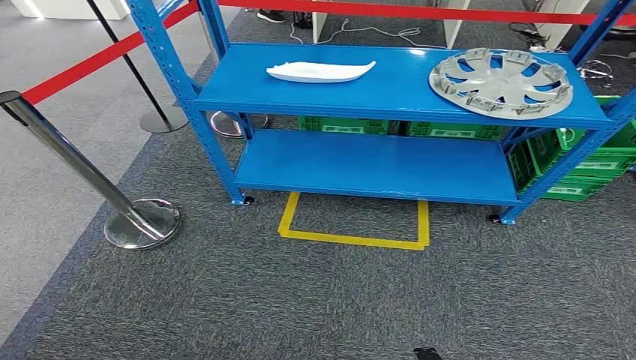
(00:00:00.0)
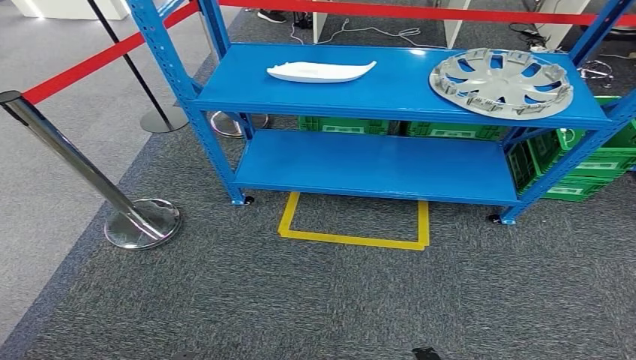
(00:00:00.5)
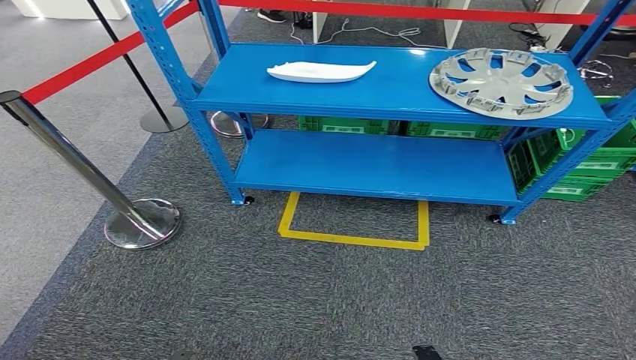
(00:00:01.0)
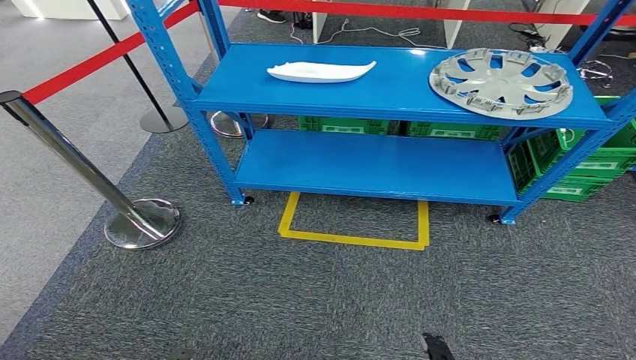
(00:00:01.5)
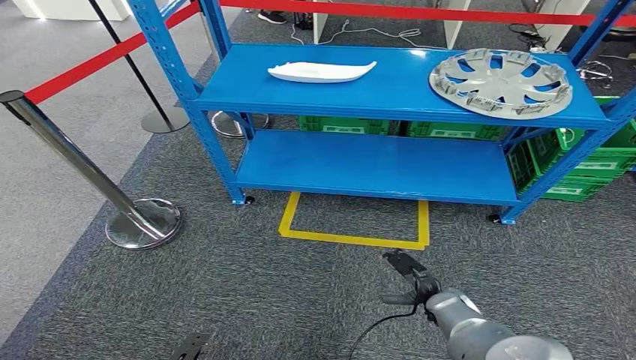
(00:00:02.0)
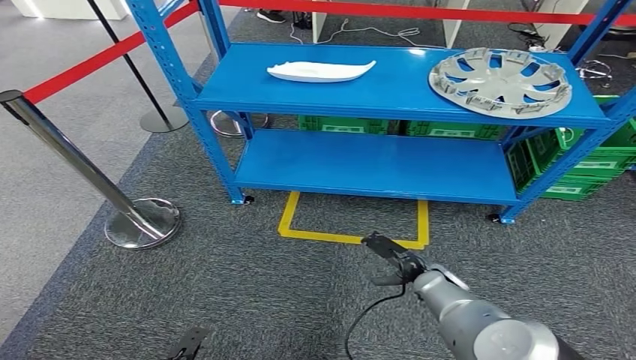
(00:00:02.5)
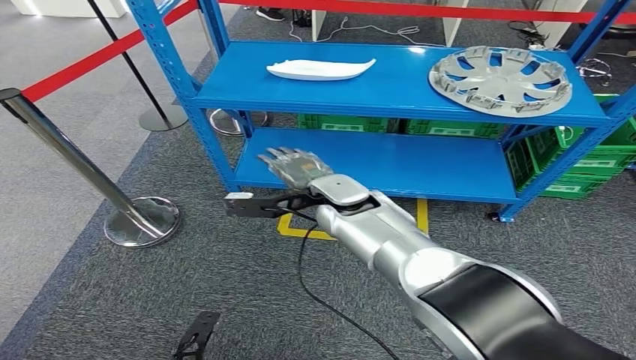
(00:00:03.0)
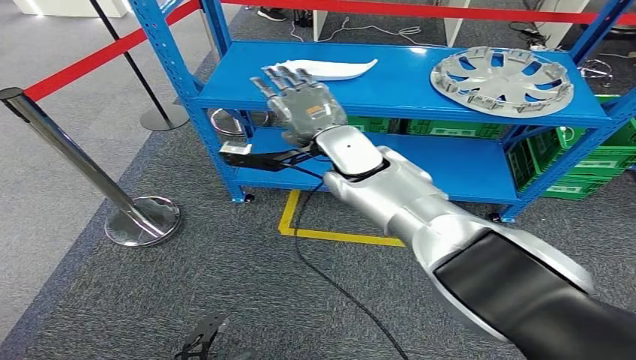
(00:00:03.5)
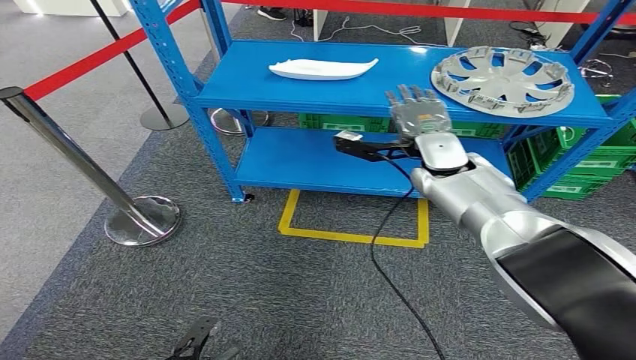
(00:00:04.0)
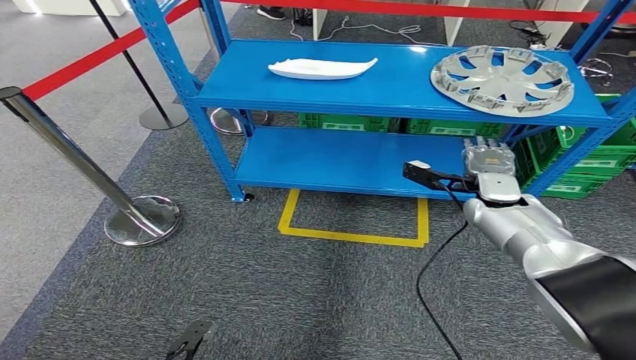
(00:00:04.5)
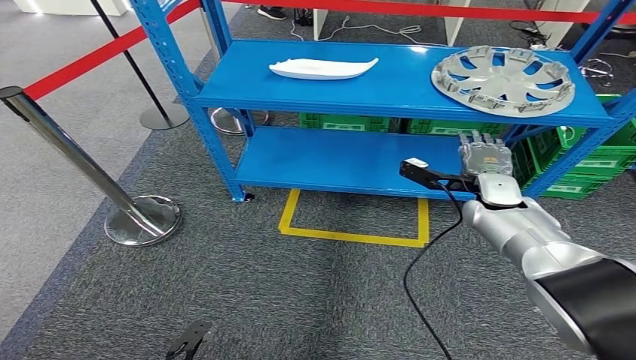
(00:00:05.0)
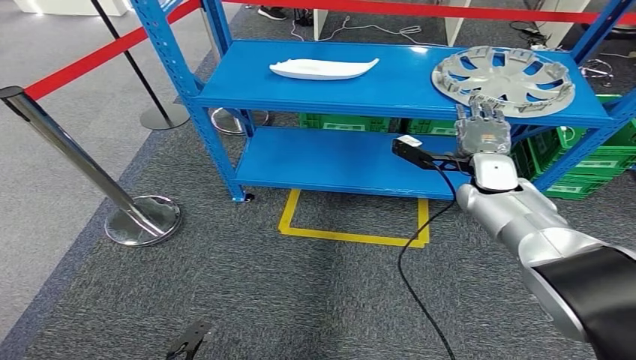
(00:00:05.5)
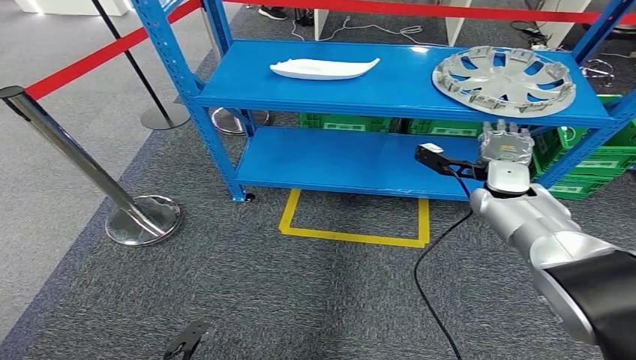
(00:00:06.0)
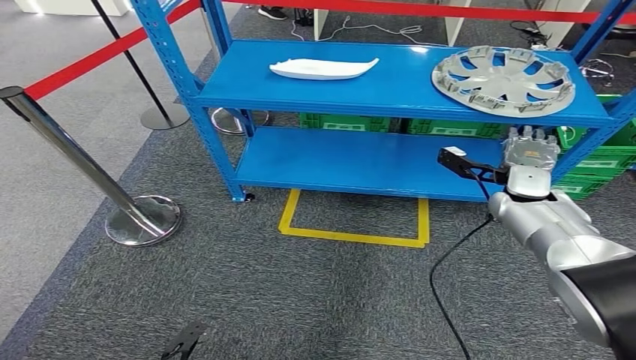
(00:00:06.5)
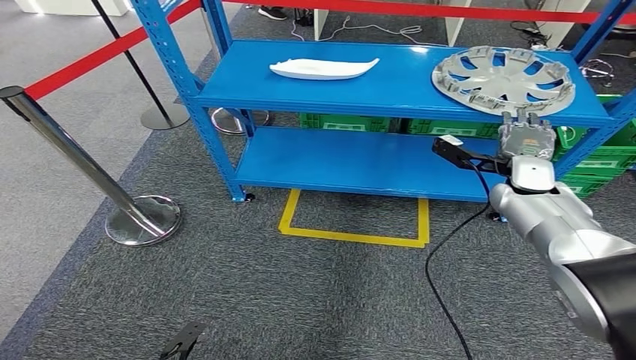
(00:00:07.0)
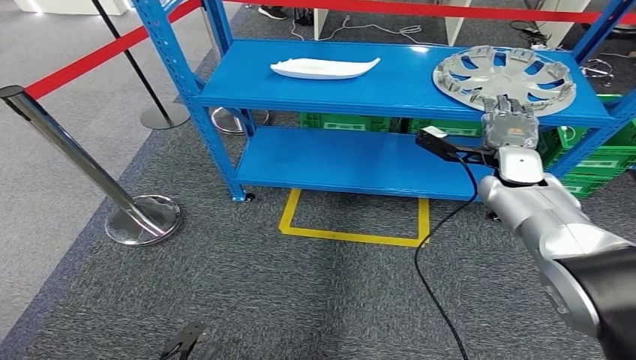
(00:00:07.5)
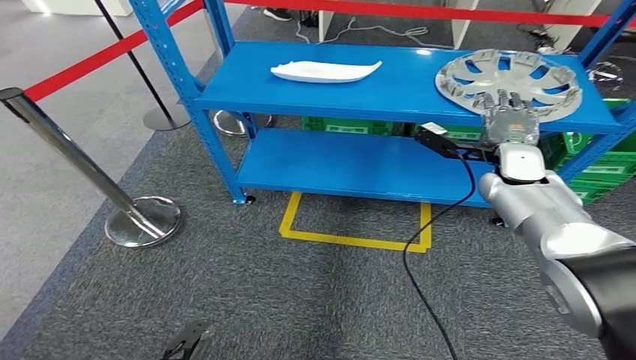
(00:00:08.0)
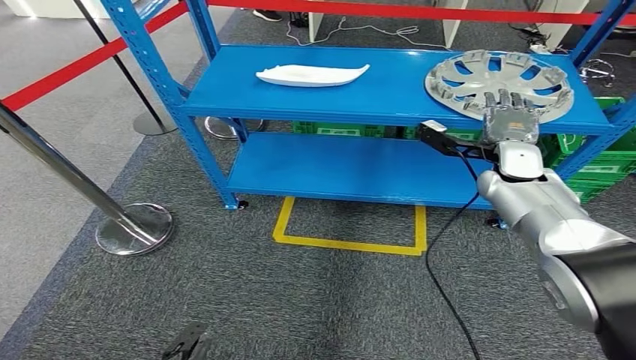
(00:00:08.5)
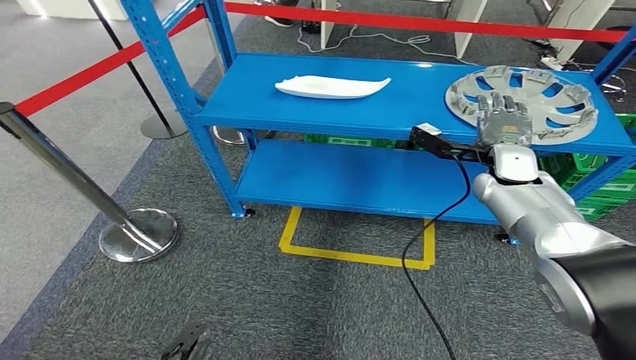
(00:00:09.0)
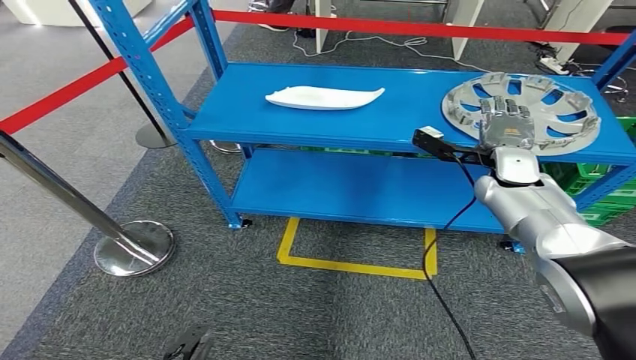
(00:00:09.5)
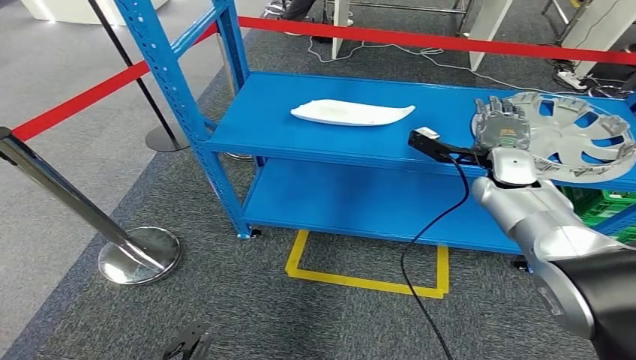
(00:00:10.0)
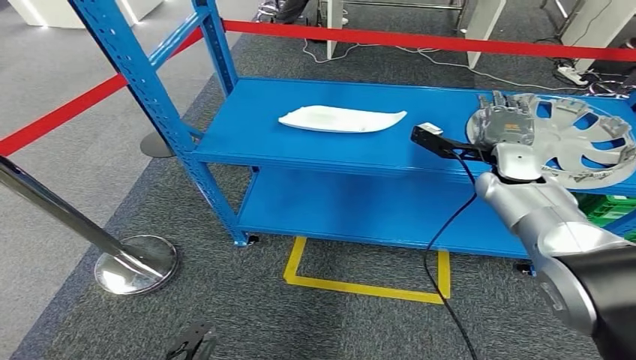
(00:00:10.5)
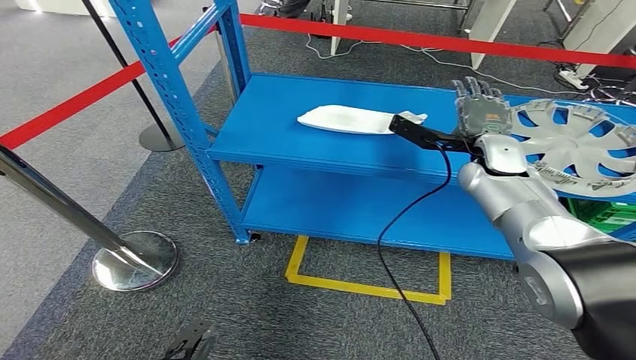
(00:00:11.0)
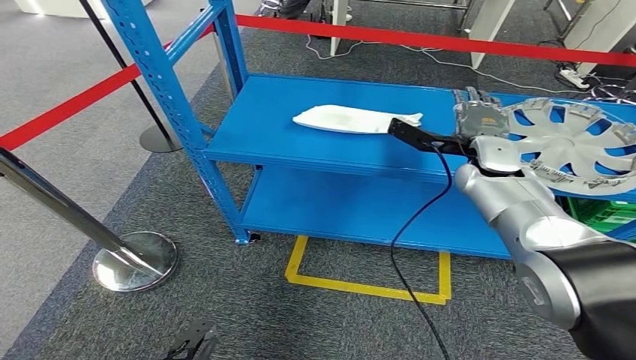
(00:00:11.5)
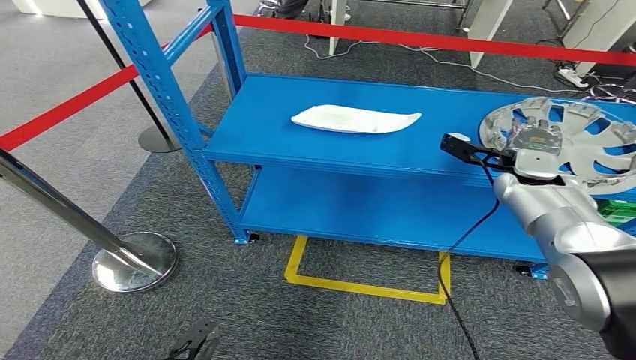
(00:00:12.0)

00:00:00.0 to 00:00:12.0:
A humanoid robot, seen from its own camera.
00:00:04.0 to 00:00:06.0: The right hand shifts about 15 cm to the right and downward.
00:00:06.0 to 00:00:08.0: The hands make only small movements.

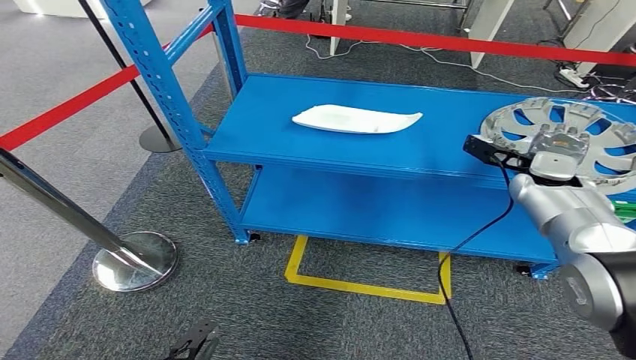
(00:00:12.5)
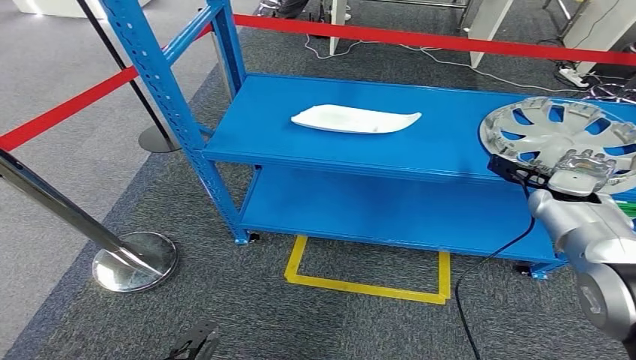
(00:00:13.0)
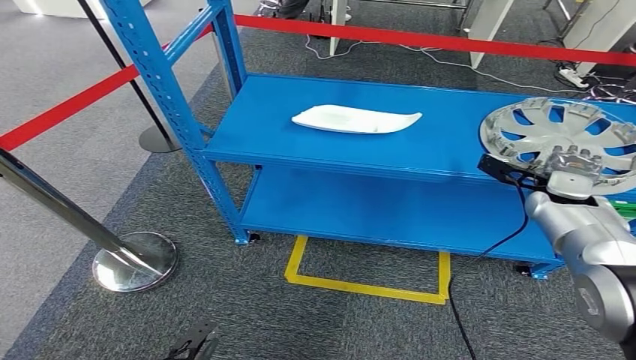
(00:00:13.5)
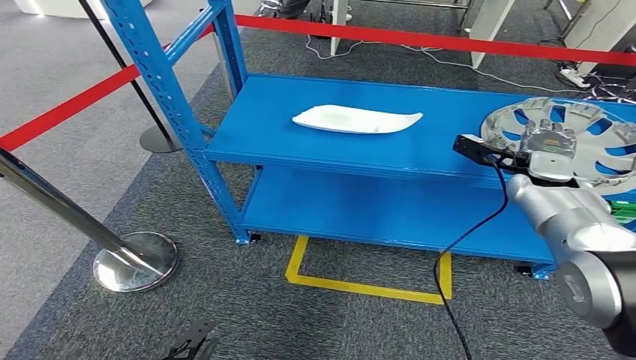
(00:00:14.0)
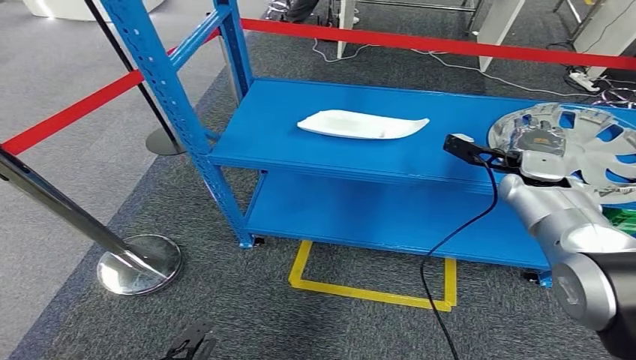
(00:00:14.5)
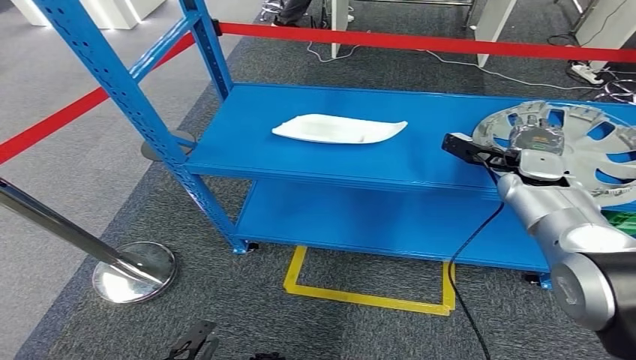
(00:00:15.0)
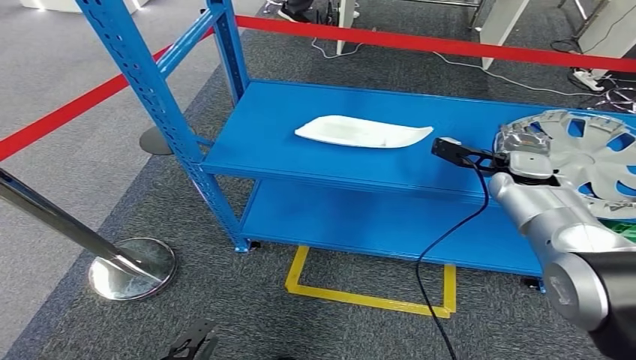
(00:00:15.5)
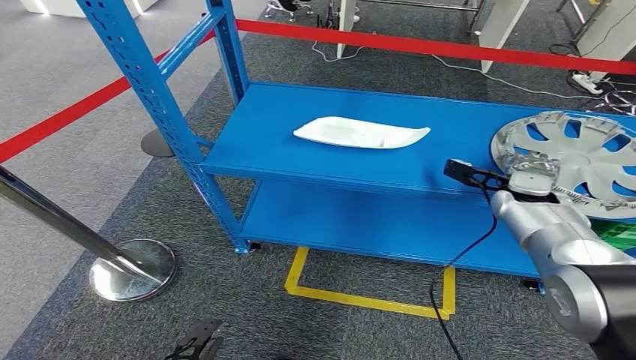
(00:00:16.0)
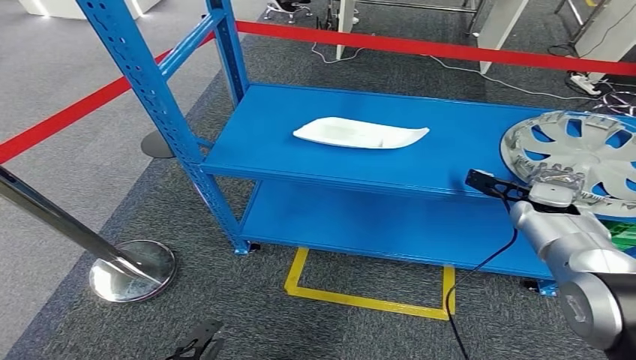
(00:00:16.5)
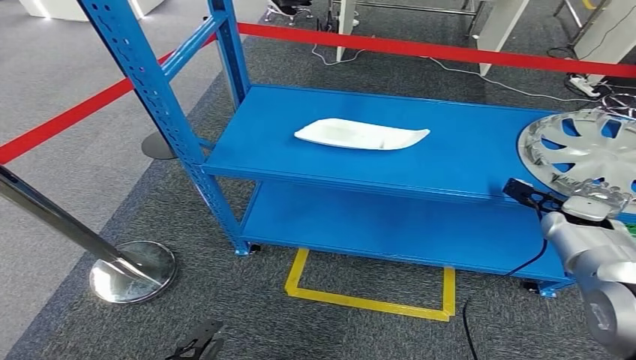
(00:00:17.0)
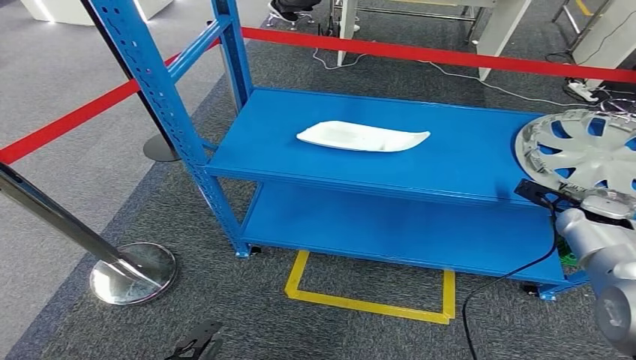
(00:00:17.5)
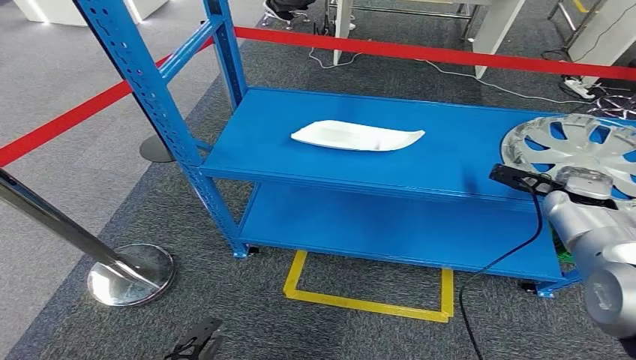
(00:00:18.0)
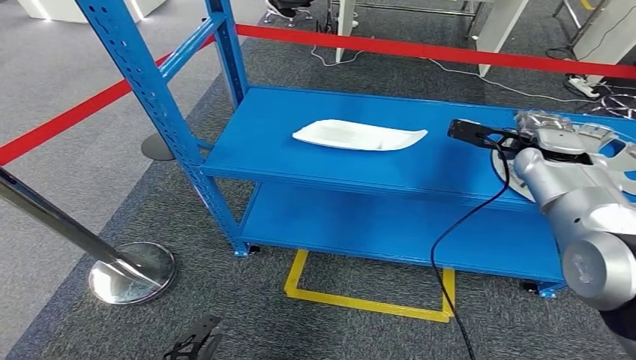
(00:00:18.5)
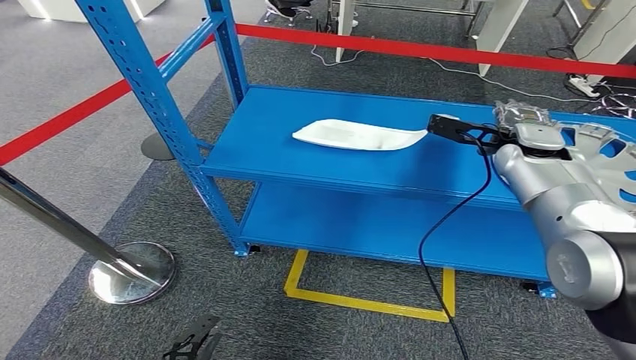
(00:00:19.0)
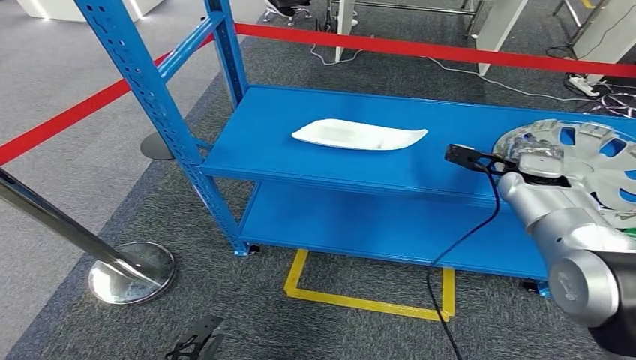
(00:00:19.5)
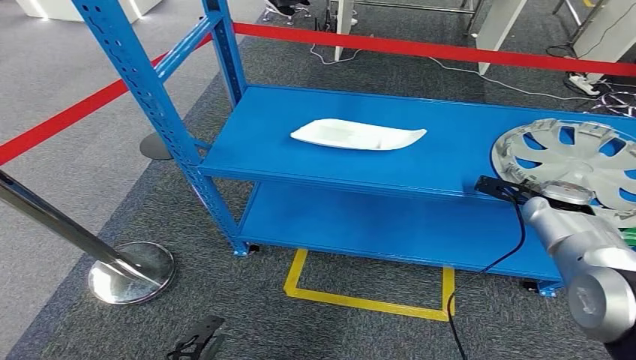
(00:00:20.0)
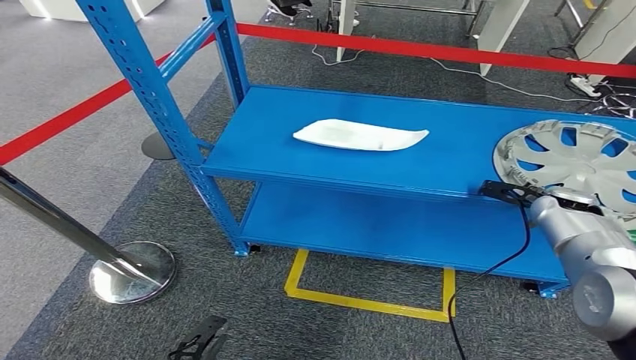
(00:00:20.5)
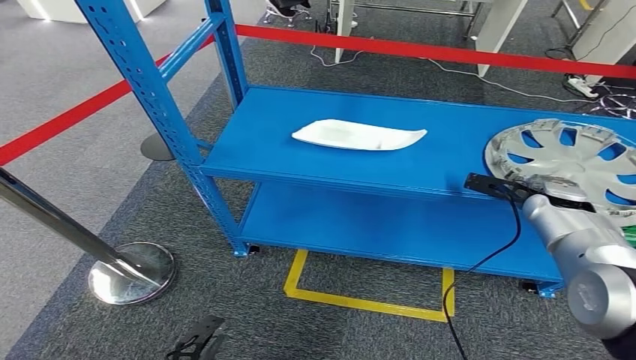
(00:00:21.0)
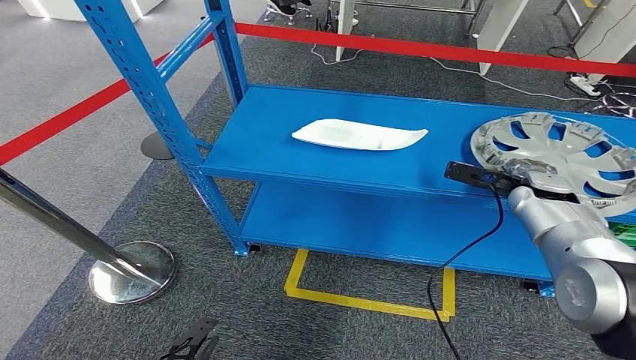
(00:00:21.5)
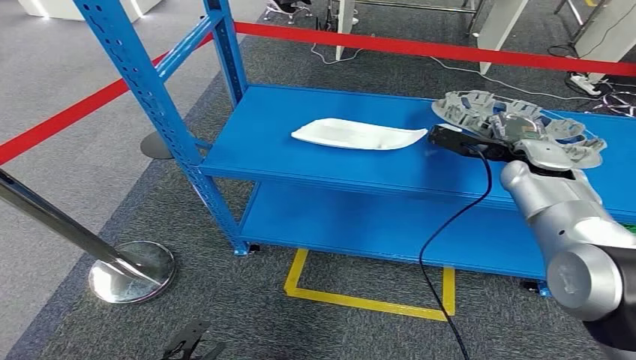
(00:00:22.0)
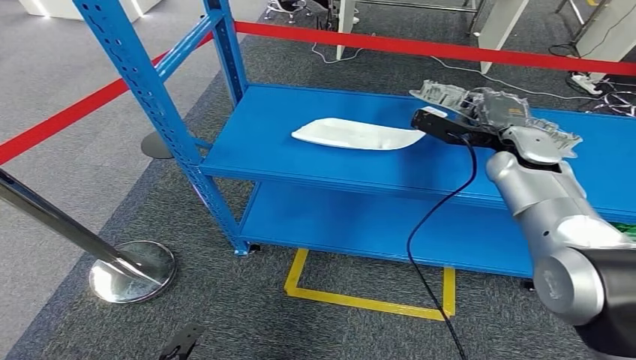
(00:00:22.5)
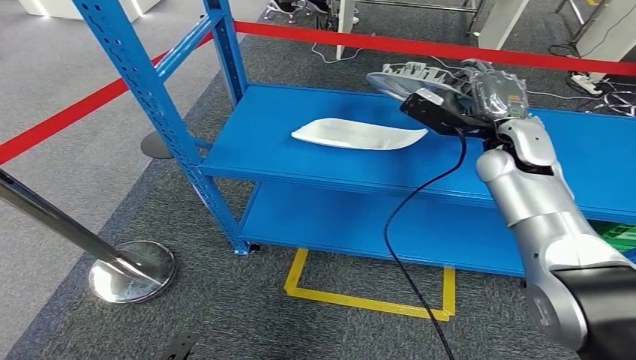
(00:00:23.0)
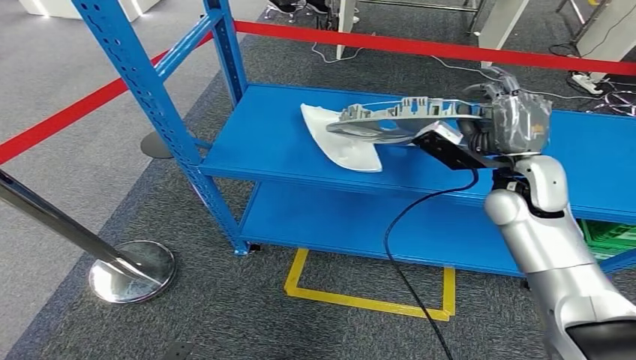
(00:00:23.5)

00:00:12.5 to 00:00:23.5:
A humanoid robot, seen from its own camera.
00:00:18.0 to 00:00:20.0: The right hand goes upward and returns, some 10 cm each way.
